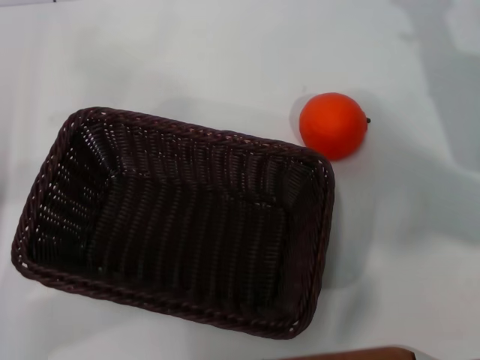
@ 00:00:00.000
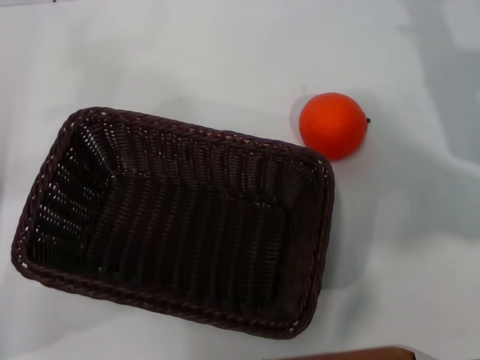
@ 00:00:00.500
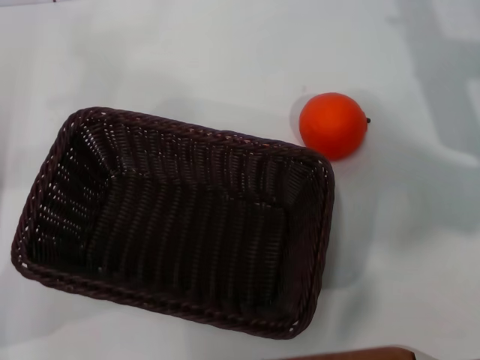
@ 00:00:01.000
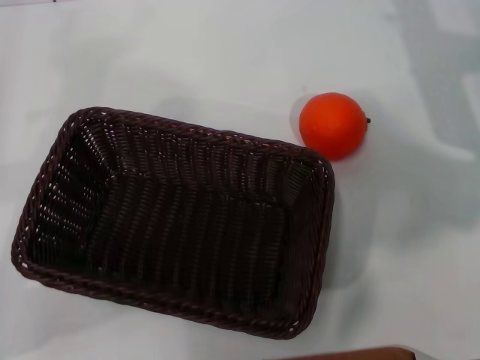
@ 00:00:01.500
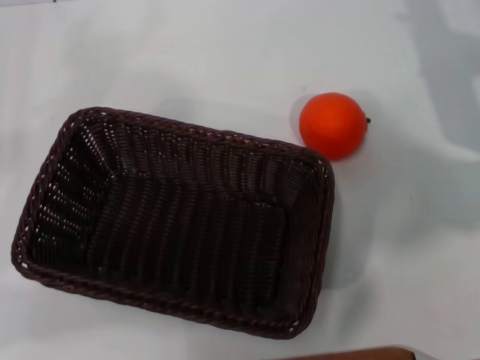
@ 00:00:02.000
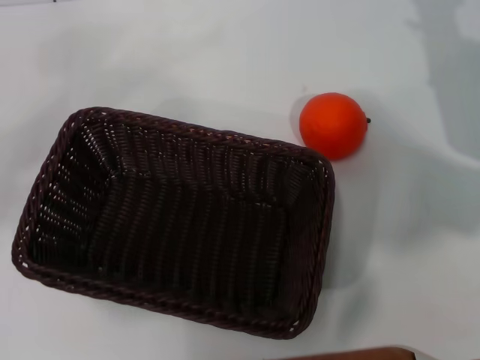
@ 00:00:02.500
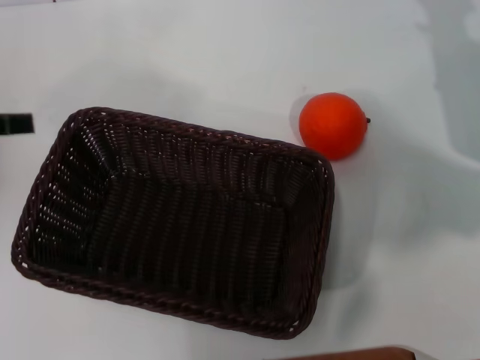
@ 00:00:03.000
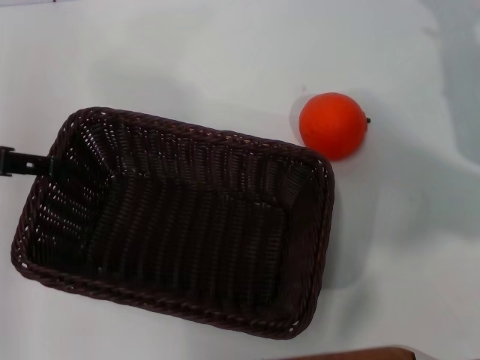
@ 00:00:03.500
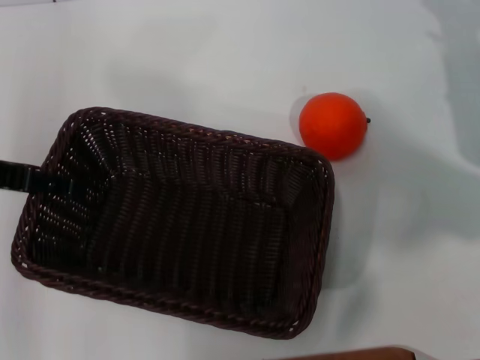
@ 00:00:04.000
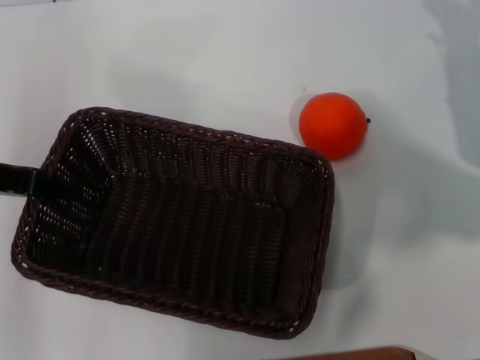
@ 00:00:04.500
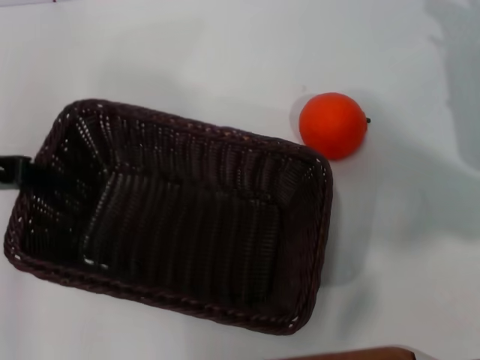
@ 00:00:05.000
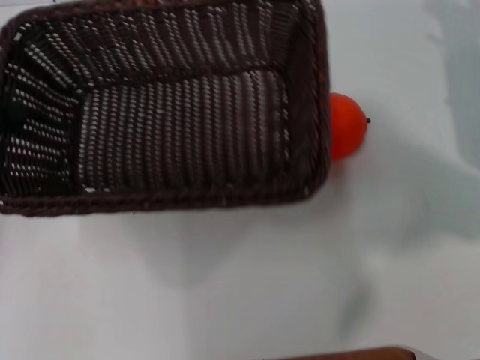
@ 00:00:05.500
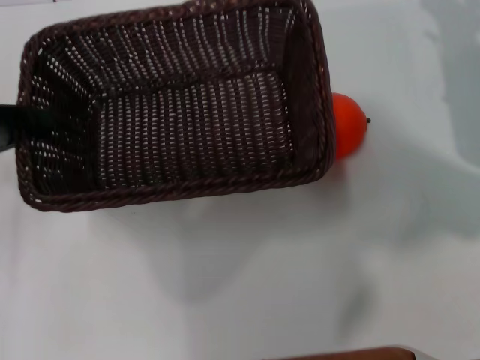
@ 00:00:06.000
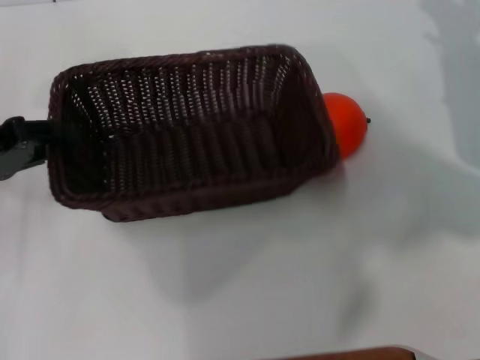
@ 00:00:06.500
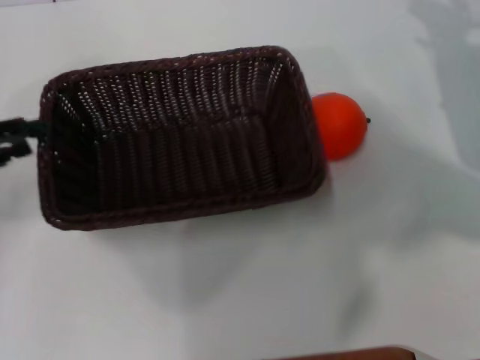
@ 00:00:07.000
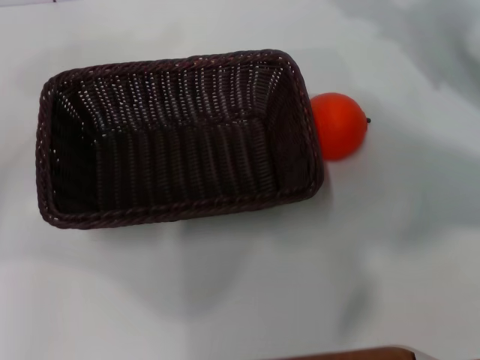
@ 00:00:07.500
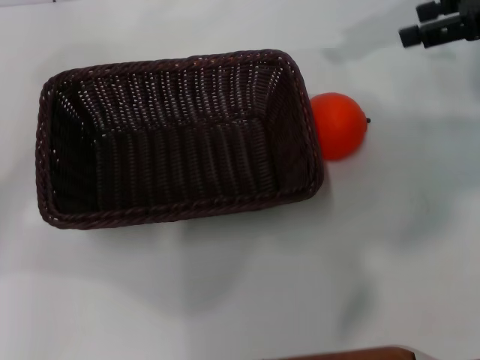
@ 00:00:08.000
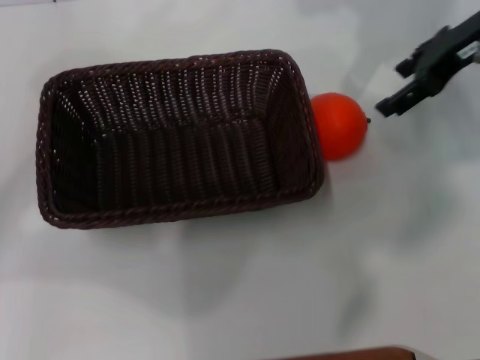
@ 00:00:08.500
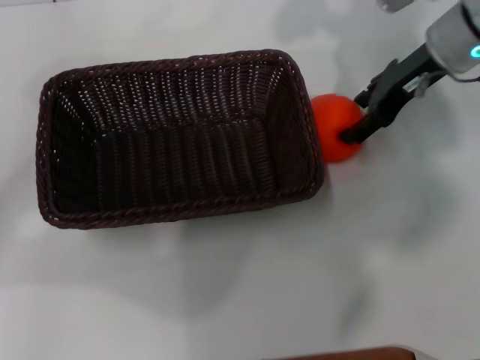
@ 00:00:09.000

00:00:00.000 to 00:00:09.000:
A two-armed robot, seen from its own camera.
Task of the whole recording: the left gripper pick up the black basket and place it horizontally in the middle of the table, the right gripper pick up the orange and place it into the black basket.
Step, 00:00:00.000 to 00:00:05.000: Pick up the dark basket with the left gripper.
Step, 00:00:05.500 to 00:00:06.500: Place the dark basket in the center of view with the left gripper.
00:00:02.000 to 00:00:04.500: The left gripper shifts roughly 10 cm upward, to the right and forward, and closes up.
00:00:04.500 to 00:00:07.000: The left gripper shifts roughly 10 cm to the left and downward, and closes, then reopens.
00:00:07.000 to 00:00:09.000: The right gripper travels to the left, upward and forward by some 15 cm. Meanwhile the left gripper opens its fingers.

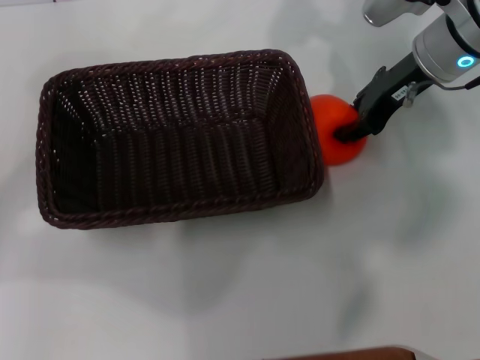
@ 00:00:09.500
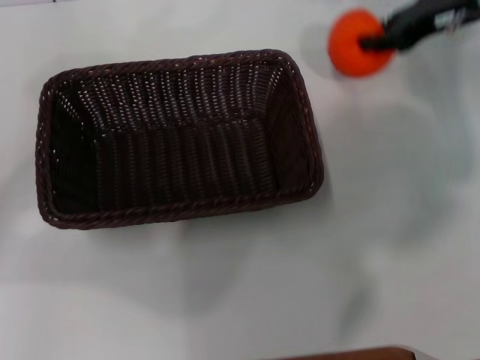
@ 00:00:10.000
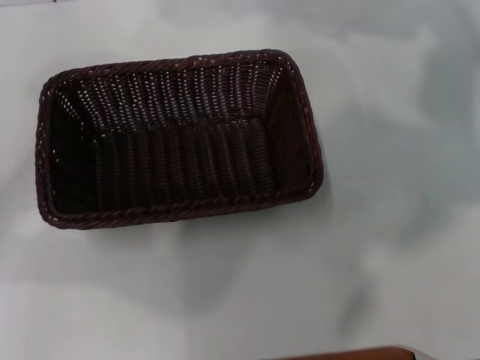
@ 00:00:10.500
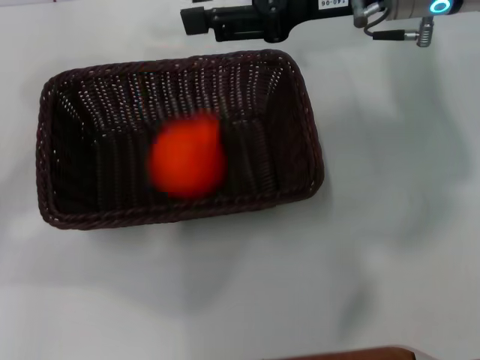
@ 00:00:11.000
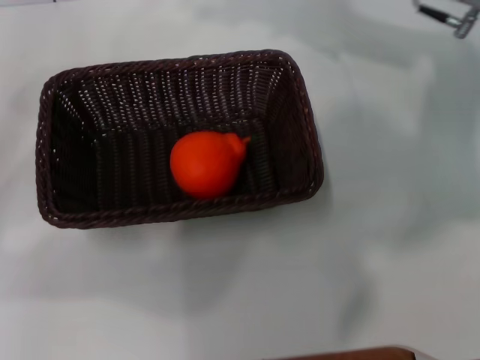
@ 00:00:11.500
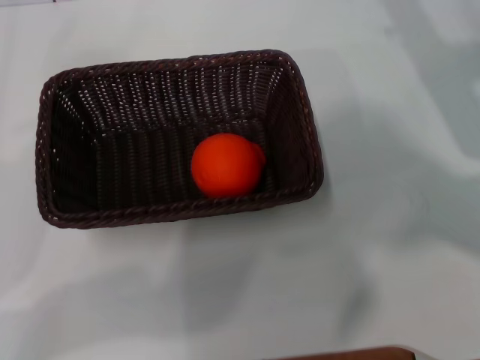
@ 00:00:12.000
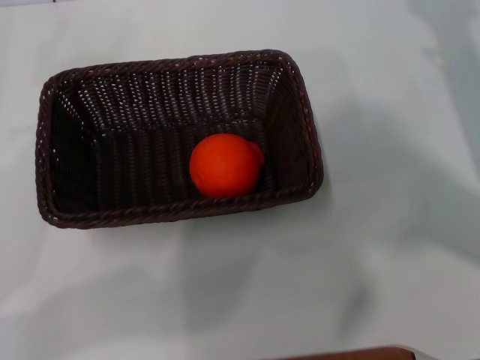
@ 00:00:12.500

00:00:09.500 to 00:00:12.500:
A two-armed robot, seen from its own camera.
Task of the whole recording: the left gripper pick up the black basket and place it horizontally in the middle of the table, the right gripper pick up the orange and place it into the black basket.
Step, 00:00:10.000 to 00:00:11.000: Place the orange into the dark basket with the right gripper.
00:00:09.500 to 00:00:11.000: The right gripper moves upward, some 5 cm, and closes.
00:00:11.000 to 00:00:12.500: The right gripper goes about 20 cm to the right, downward and backward, and opens, while the left gripper goes some 5 cm downward.
